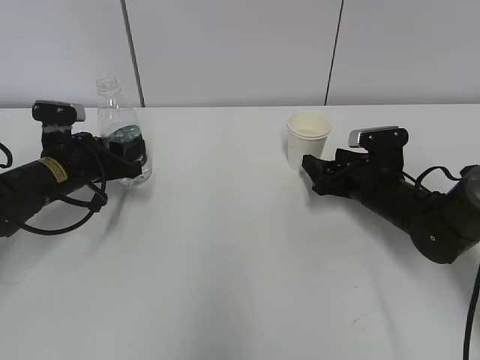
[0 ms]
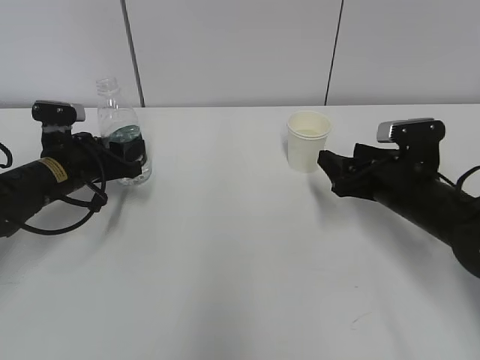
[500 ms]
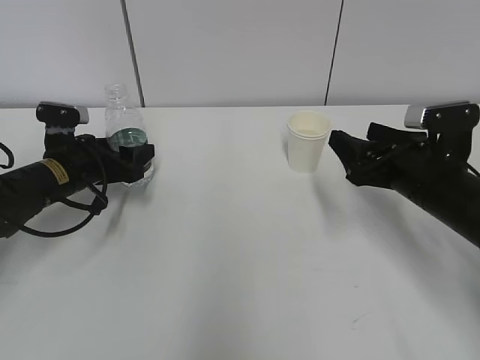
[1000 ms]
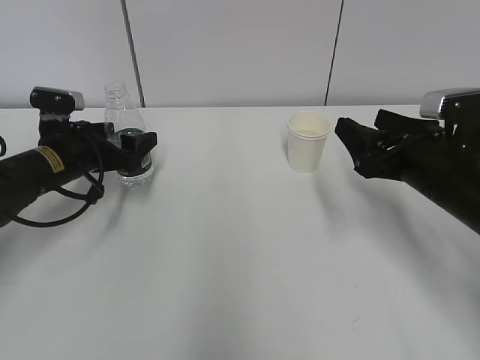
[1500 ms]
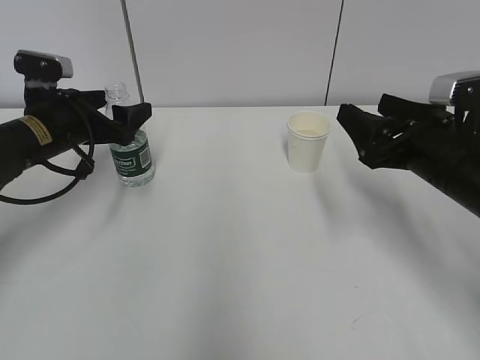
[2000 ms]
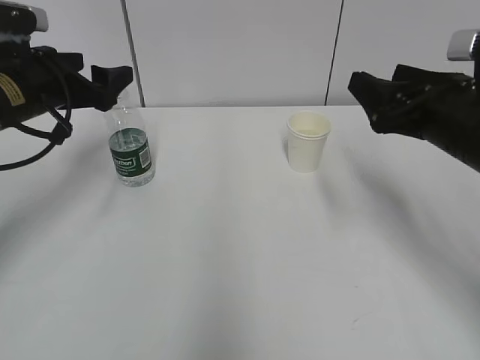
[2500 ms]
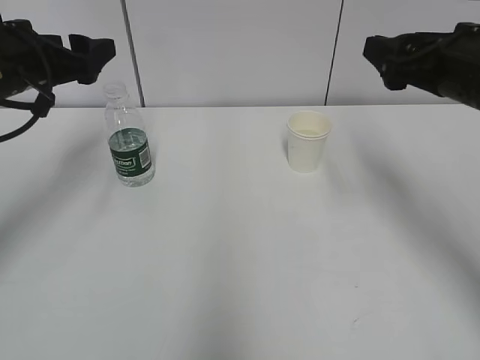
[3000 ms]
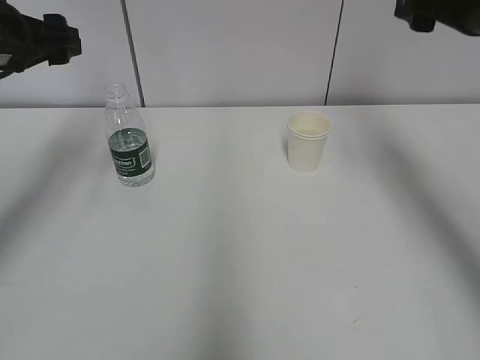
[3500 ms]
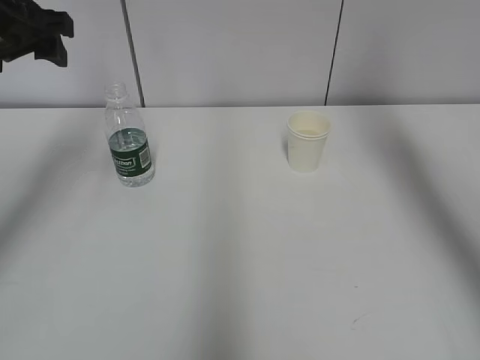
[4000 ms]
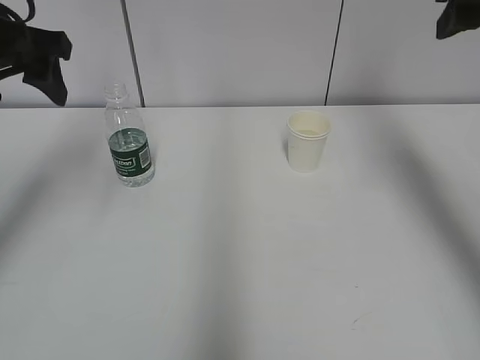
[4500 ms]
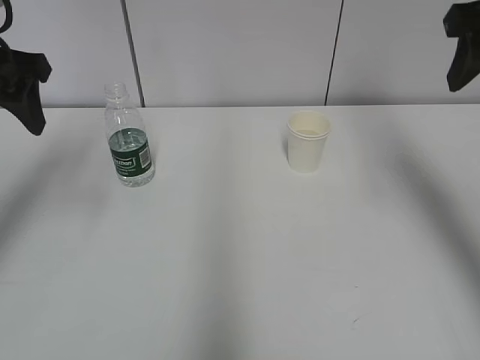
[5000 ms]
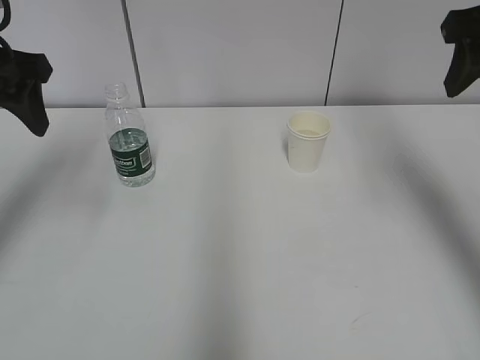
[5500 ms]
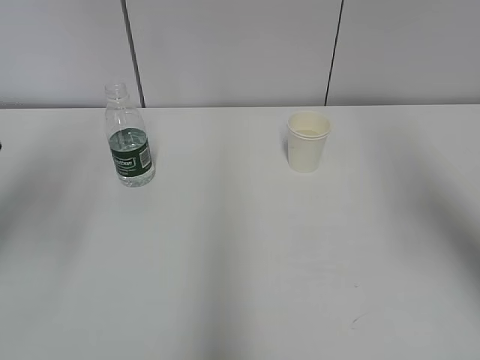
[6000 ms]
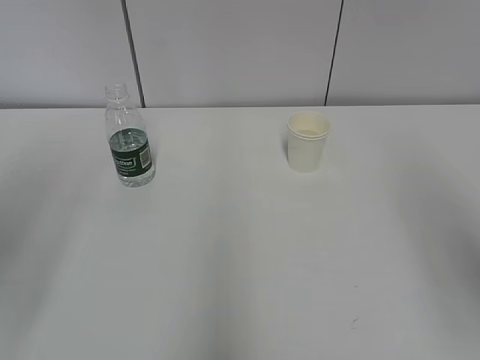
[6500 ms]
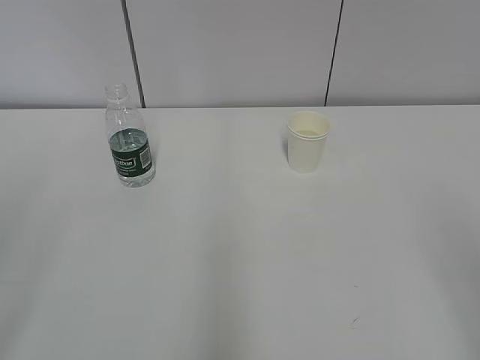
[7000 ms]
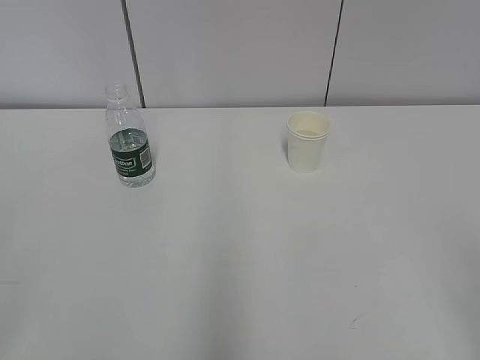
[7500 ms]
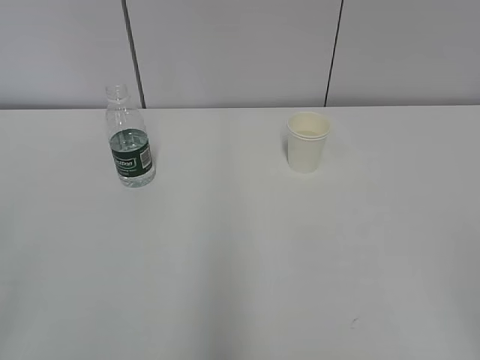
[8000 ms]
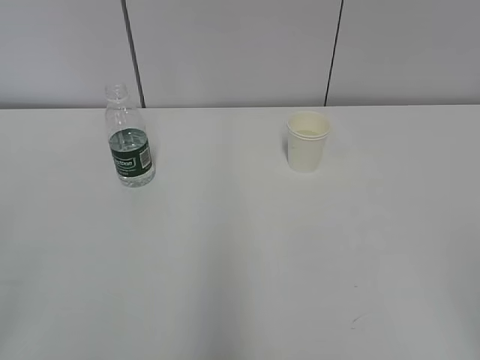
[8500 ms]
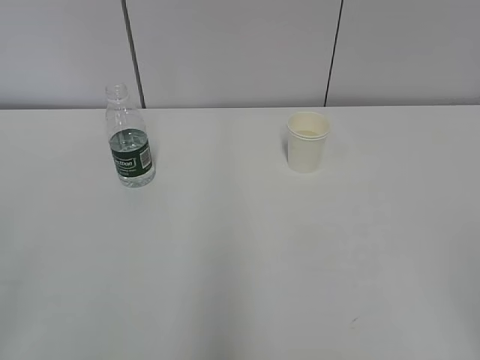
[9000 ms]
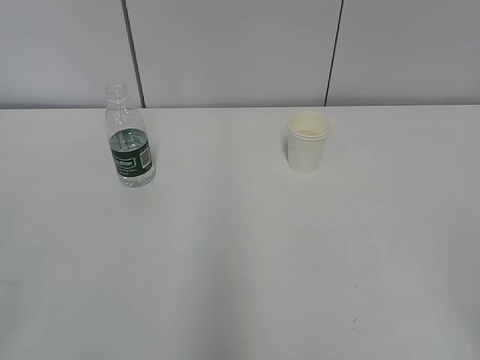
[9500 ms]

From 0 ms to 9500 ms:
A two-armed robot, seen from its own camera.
From 0 ms to 2000 ms: The right gripper shifts about 15 cm upward and backward. The left gripper shifts about 5 cm upward, and opens up.
From 2000 ms to 4000 ms: The two grippers go some 20 cm upward.
From 4000 ms to 5500 ms: The right gripper closes up.
From 5500 ms to 7500 ms: Both grippers move backward, approximately 30 cm.

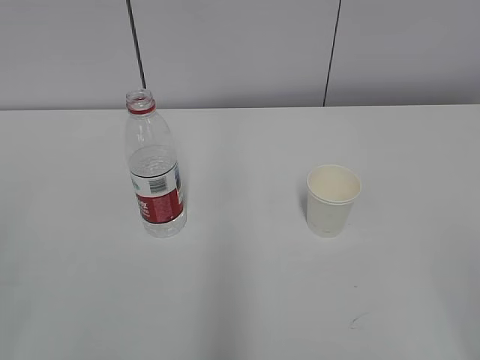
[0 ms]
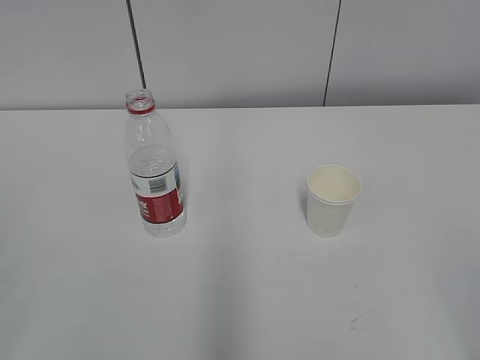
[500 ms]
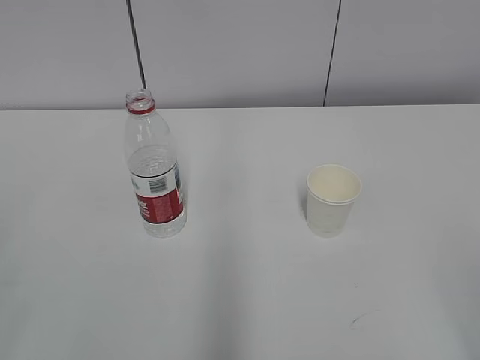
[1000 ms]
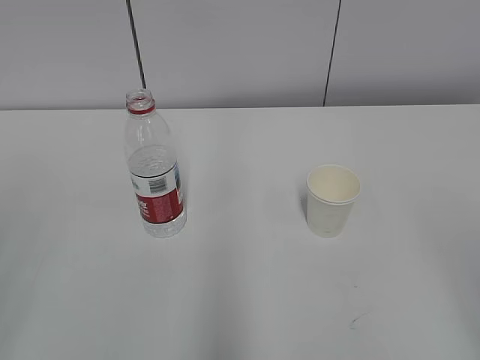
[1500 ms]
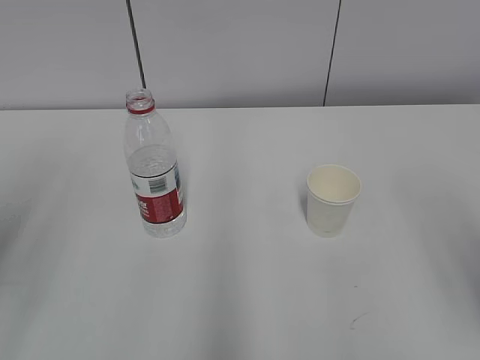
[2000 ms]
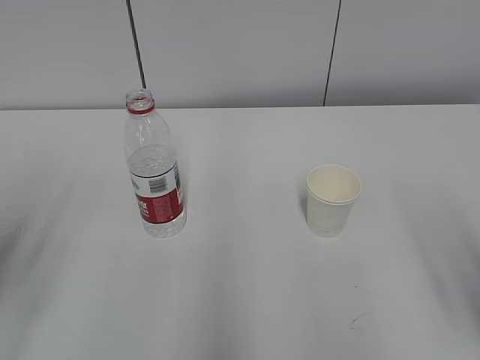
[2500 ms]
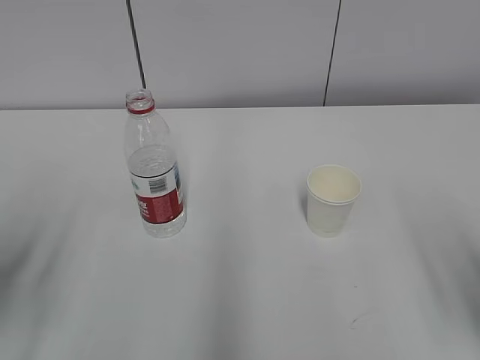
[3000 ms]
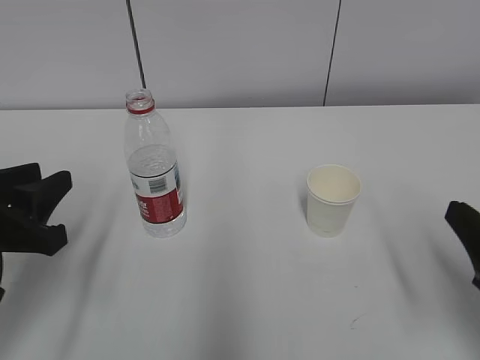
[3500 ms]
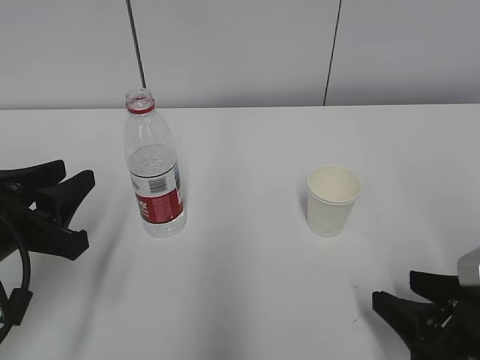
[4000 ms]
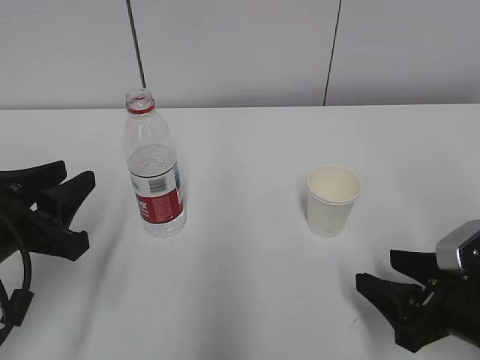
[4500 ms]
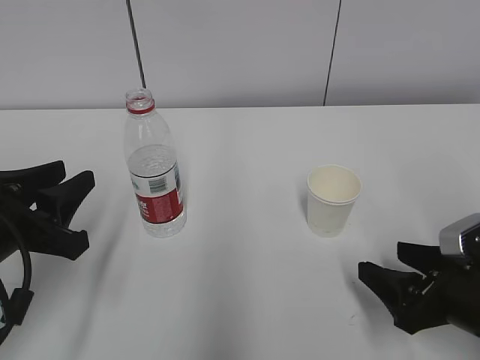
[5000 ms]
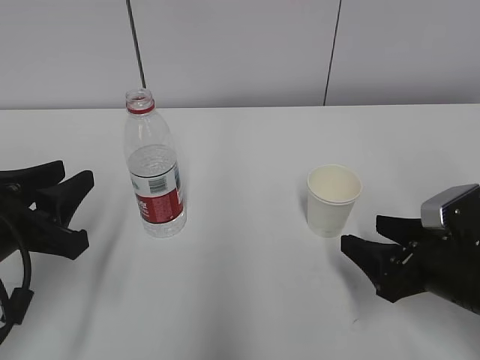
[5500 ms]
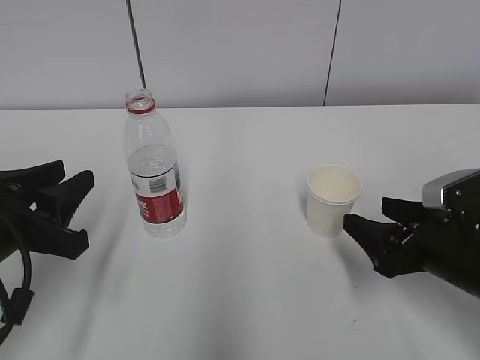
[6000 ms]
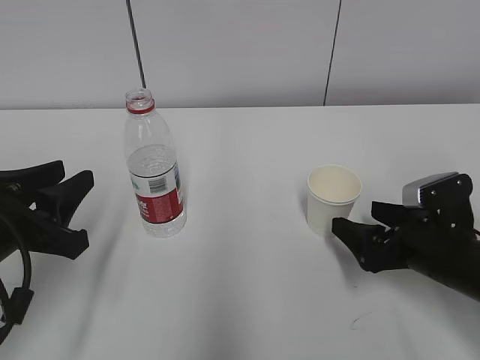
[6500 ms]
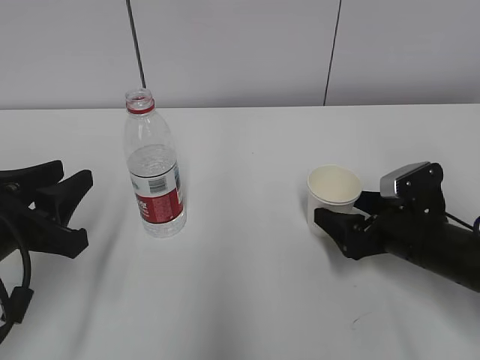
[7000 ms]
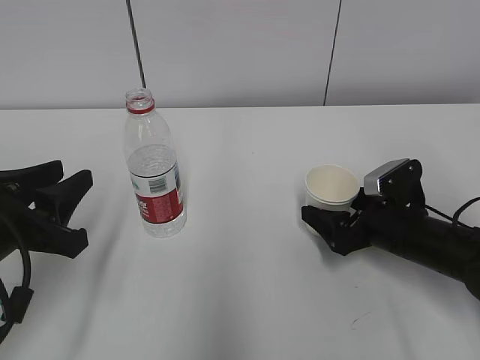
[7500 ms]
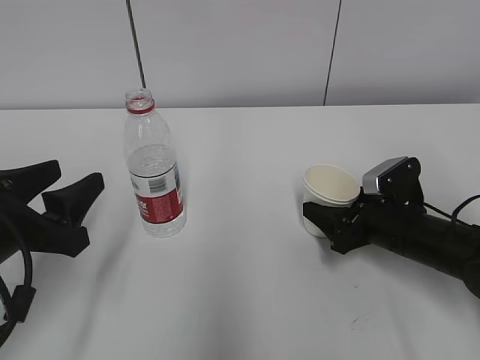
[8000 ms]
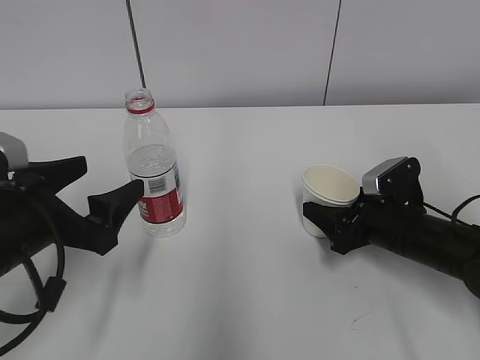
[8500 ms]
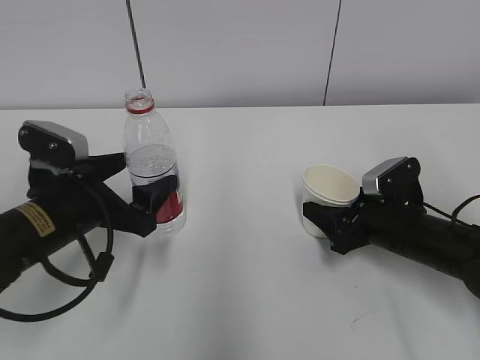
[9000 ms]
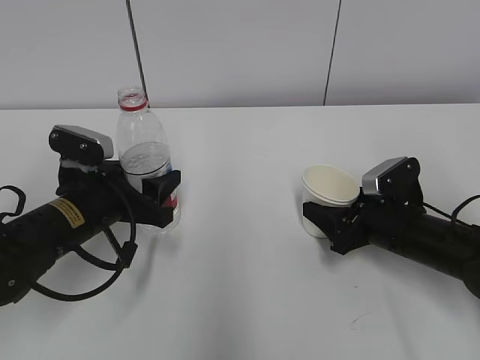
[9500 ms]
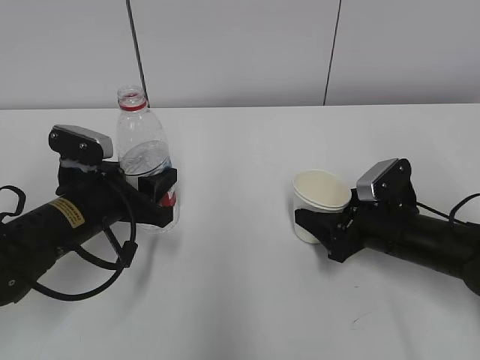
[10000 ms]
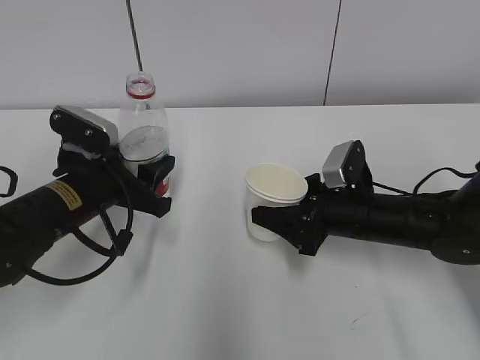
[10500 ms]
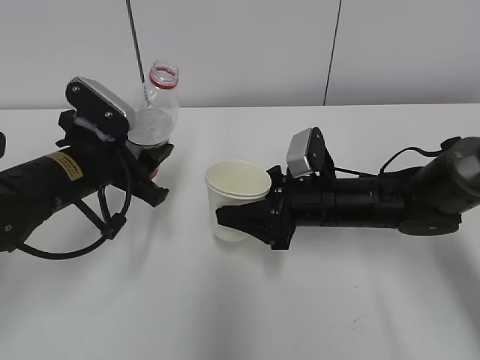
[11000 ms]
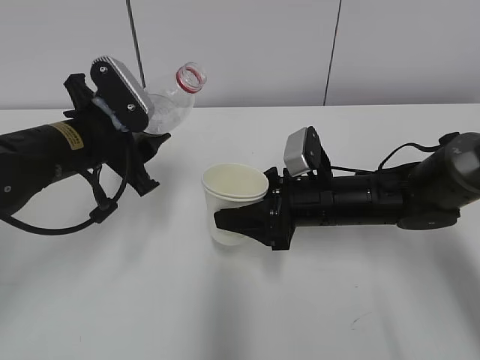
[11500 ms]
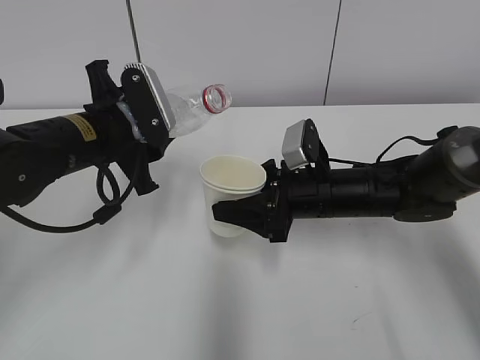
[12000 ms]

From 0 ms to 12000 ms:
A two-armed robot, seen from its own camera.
Step, from 0 ms to 8000 ms: Grab the paper cup with the right hand.
Step, from 9000 ms to 11500 ms: Lift the paper cup with the right hand.
From 2000 ms to 4000 ms: The right gripper heads downward, covering approximately 20 cm. The left gripper heads downward and forward, covering some 20 cm.
From 4000 ms to 6000 ms: The right gripper goes some 10 cm forward.
From 6000 ms to 8000 ms: The left gripper opens. The right gripper moves forward, roughly 10 cm, and closes its fingers.
From 8000 ms to 10000 ms: The left gripper goes roughly 10 cm forward and downward, and closes its fingers.
From 10000 ms to 12000 ms: The right gripper moves to the left, some 10 cm, while the left gripper heads upward, covering approximately 10 cm.

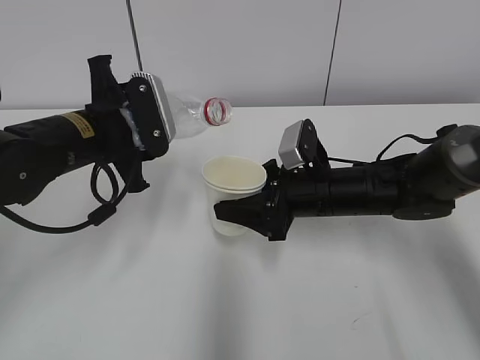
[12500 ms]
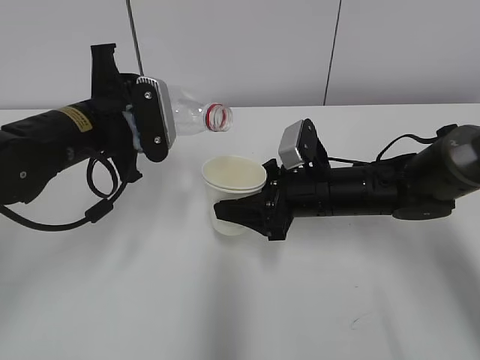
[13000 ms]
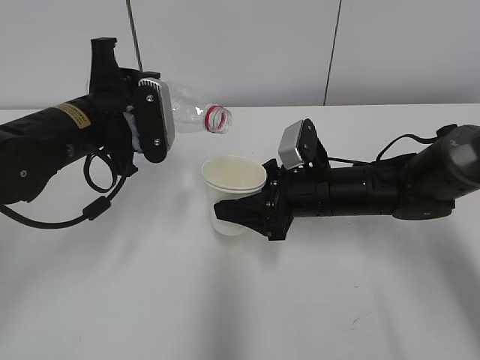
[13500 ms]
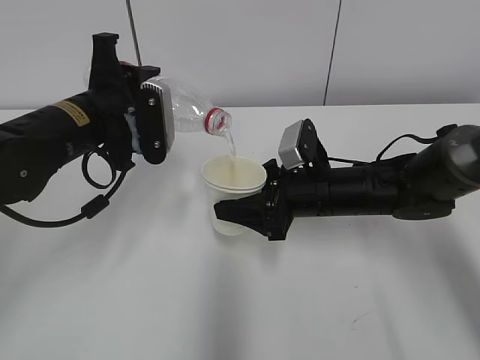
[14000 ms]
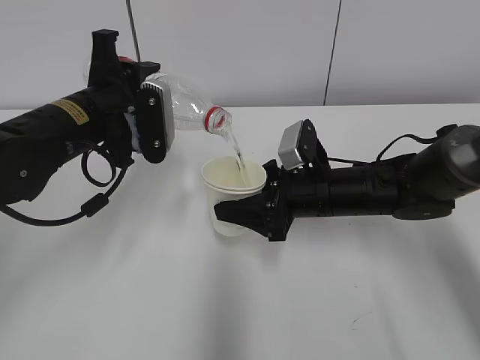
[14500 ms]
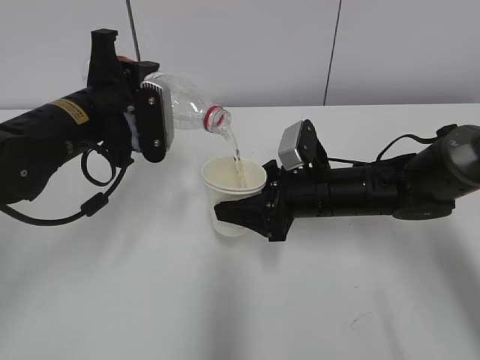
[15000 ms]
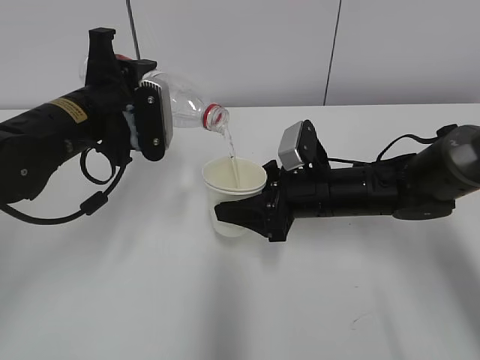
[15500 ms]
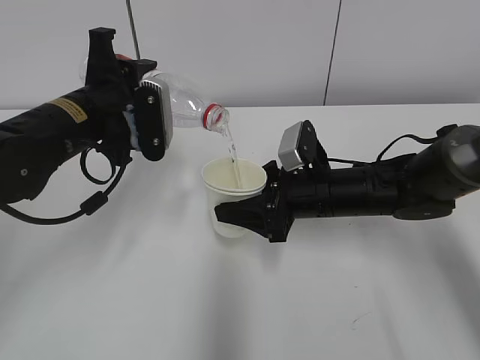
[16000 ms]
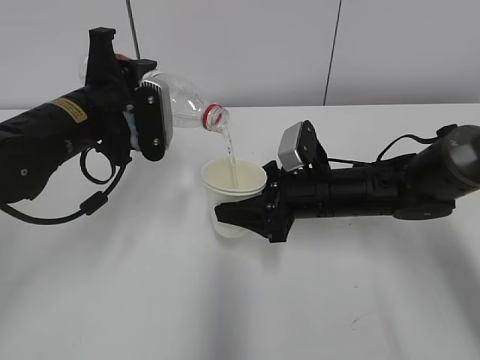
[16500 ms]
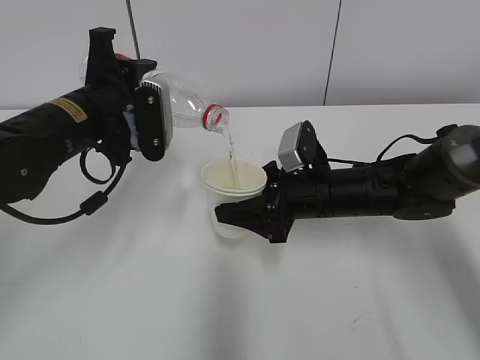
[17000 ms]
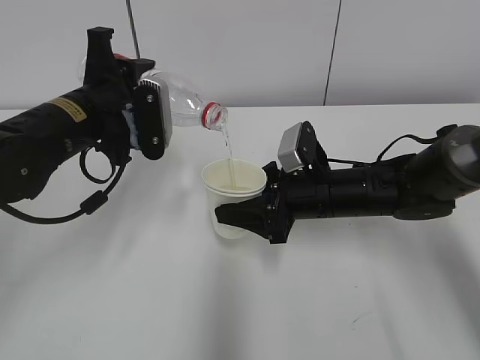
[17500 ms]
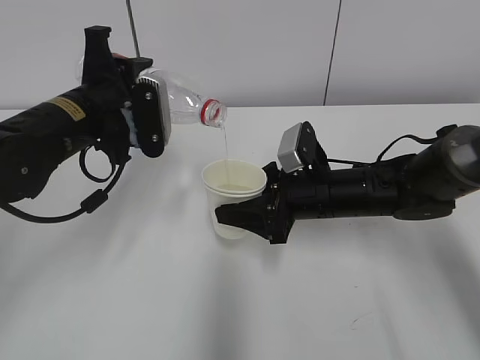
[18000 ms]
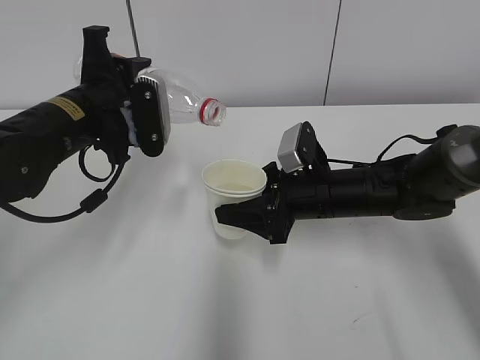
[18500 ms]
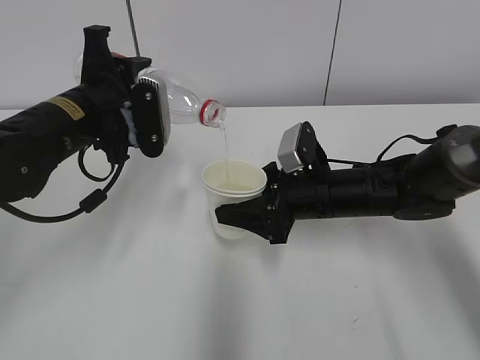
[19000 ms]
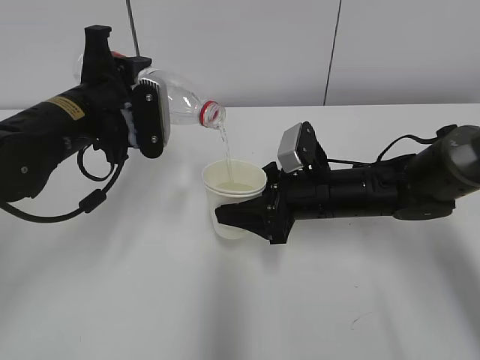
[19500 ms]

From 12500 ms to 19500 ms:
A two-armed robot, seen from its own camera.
Step, from 12500 ms to 17500 ms: Pour water with the left hand.
From 14500 ms to 19500 ms: Both grippers stay put.
